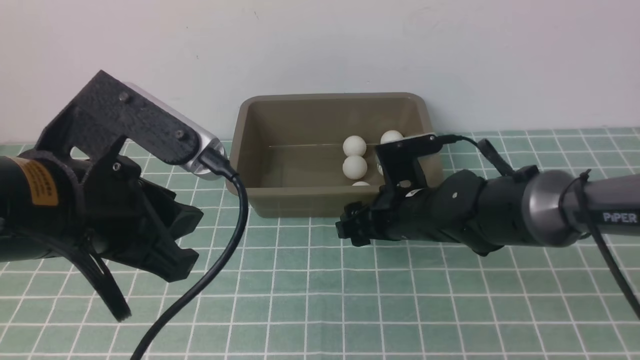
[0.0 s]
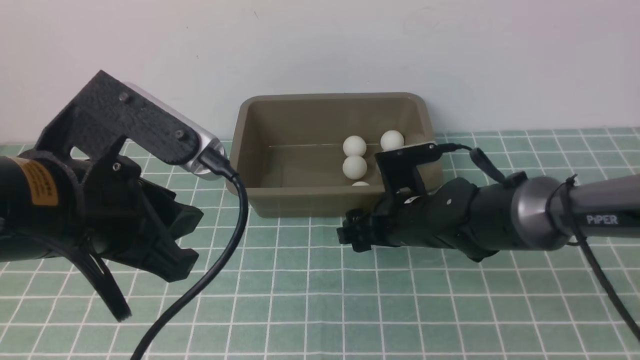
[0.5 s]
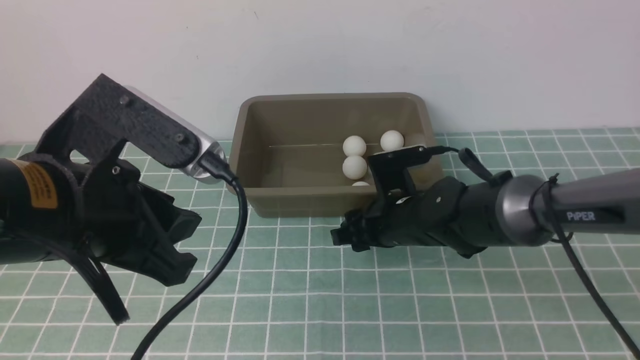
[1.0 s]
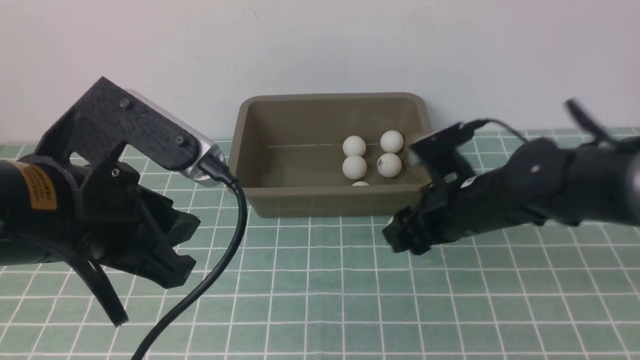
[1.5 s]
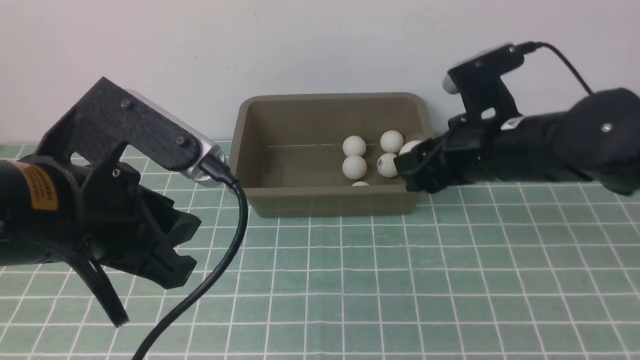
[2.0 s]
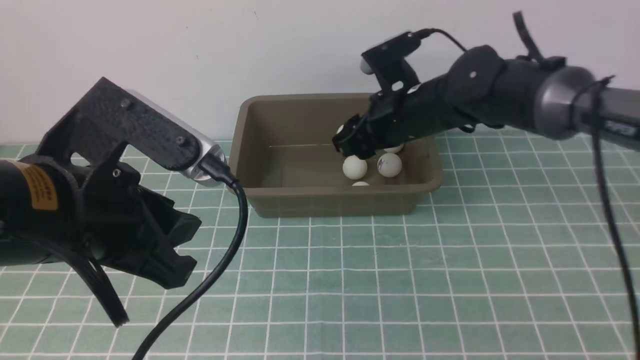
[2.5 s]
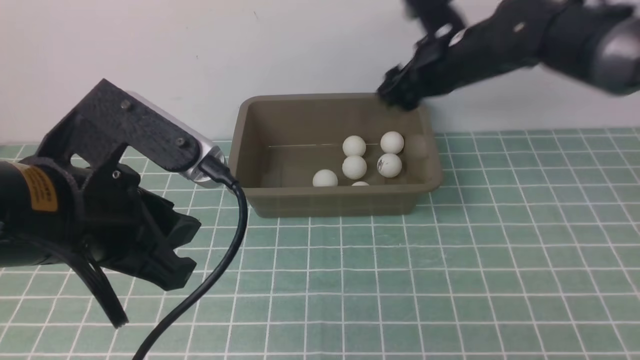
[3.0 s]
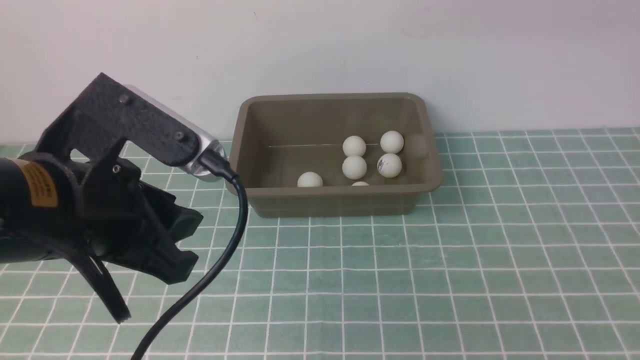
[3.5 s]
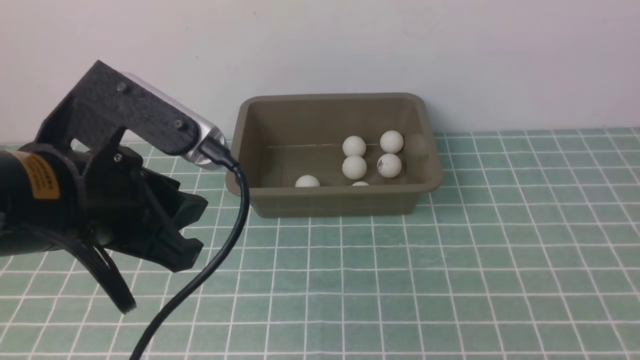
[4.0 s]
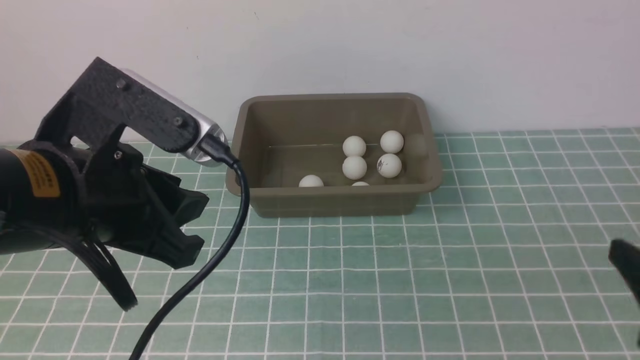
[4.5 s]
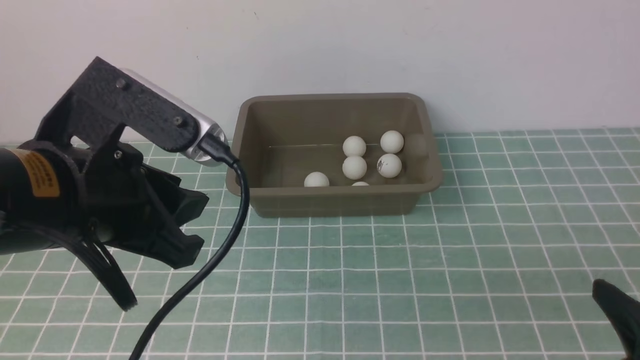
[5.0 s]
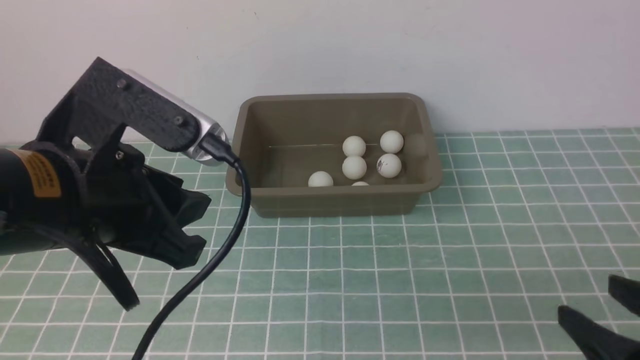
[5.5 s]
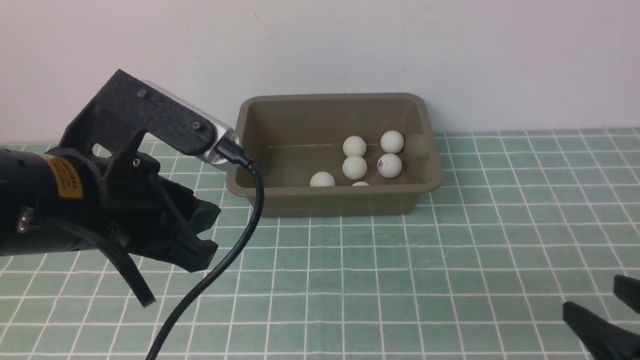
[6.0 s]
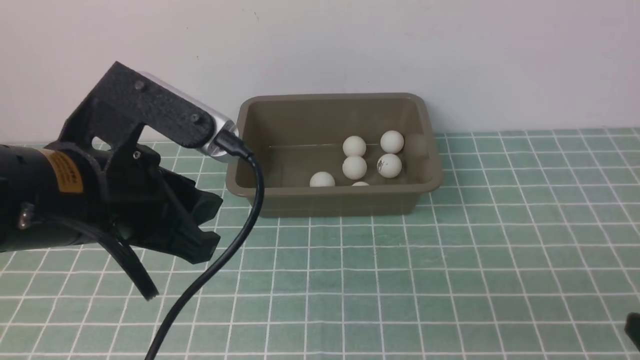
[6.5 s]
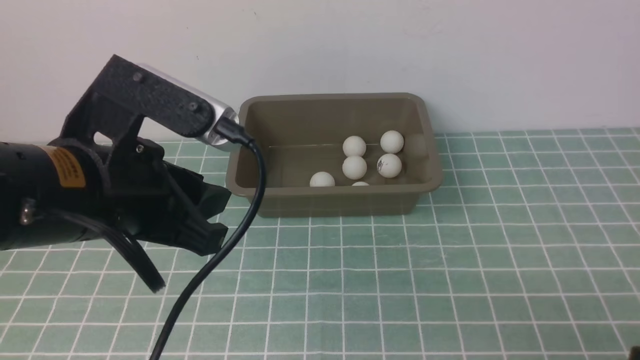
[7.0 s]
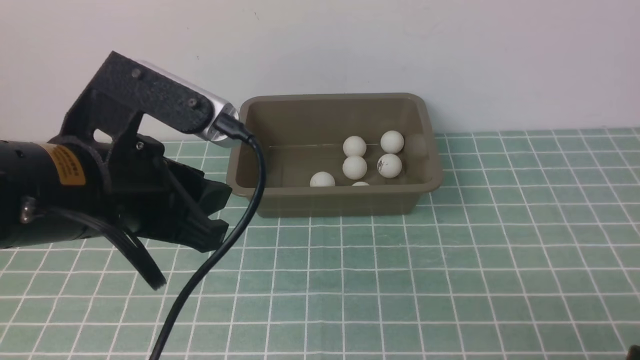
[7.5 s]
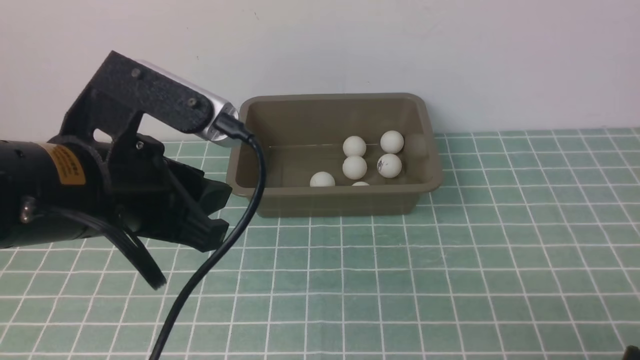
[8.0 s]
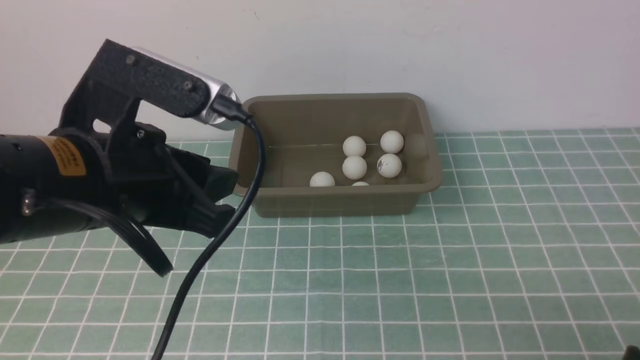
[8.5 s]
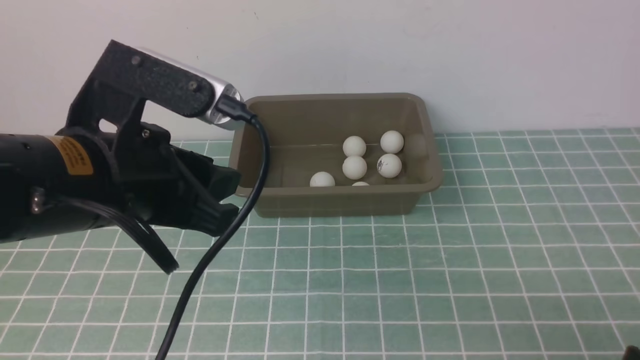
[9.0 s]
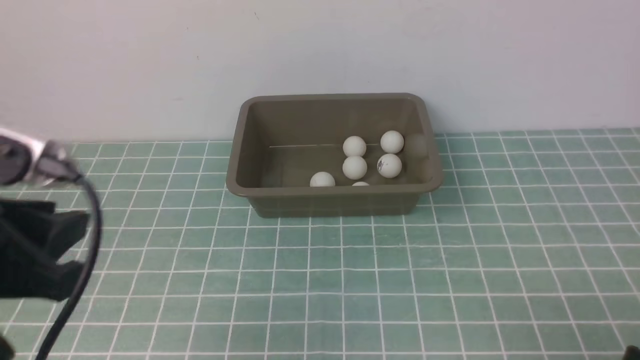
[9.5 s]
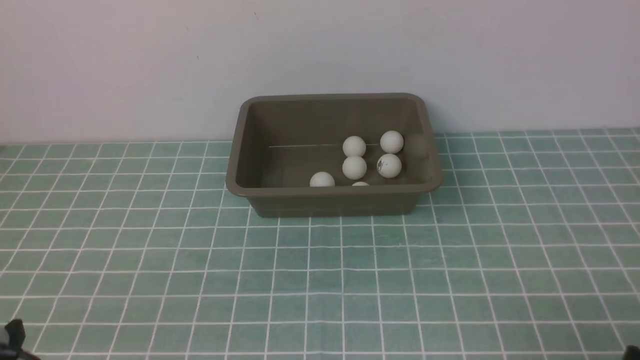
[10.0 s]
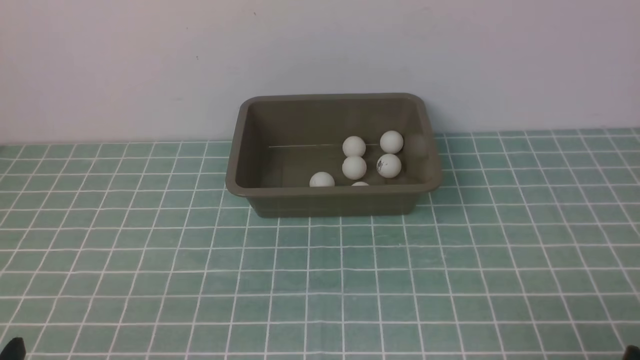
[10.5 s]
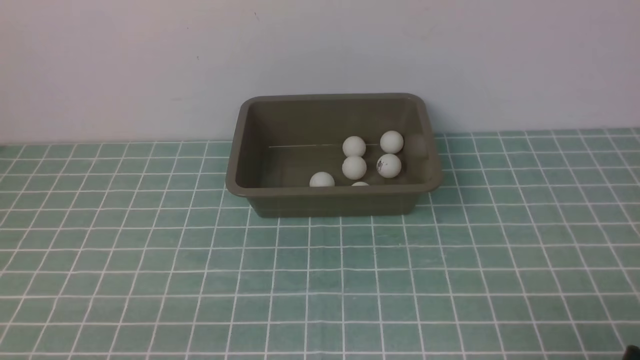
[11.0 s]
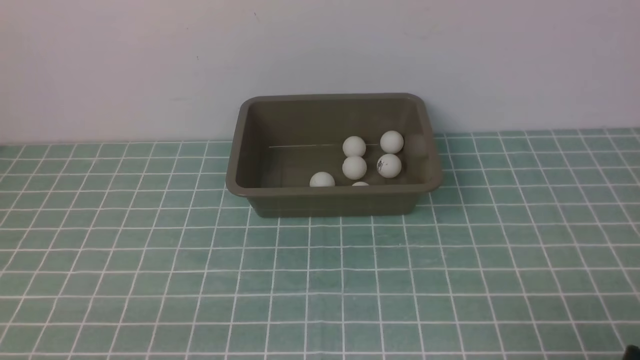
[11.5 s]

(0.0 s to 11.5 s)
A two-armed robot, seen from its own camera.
Step, 1.5 s - 2.5 s: use the right arm to put the table tennis ball into the box.
0.0 s - 2.0 s: The right gripper travels upward and forward by roughly 10 cm, and closes up.
2.0 s - 4.0 s: The right gripper is displaced backward, to the right and upward by approximately 35 cm.
4.0 s - 6.0 s: The right gripper moves downward, approximately 15 cm.
6.0 s - 7.5 s: The right gripper changes place by approximately 5 cm.
7.5 s - 9.5 s: The left gripper goes approximately 15 cm to the left and backward.
9.5 s - 11.5 s: The left gripper goes roughly 15 cm downward and backward.

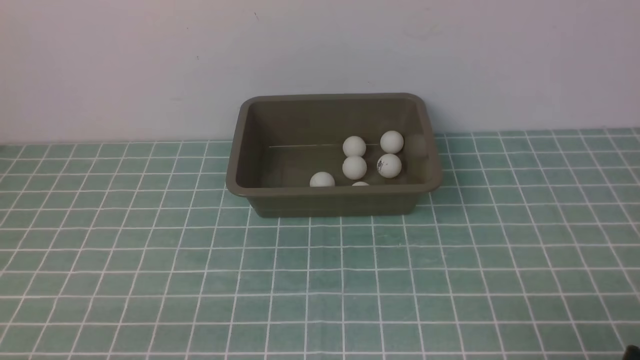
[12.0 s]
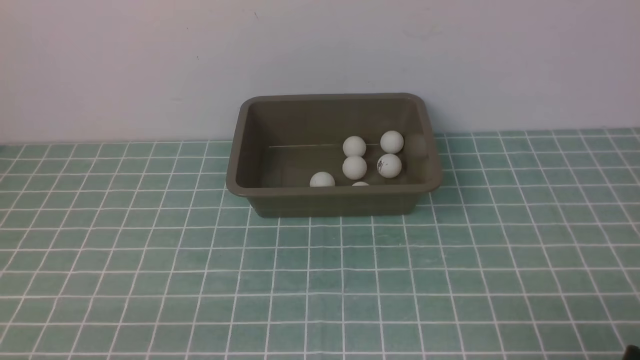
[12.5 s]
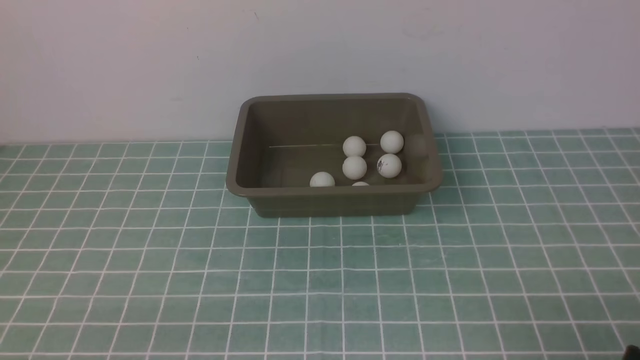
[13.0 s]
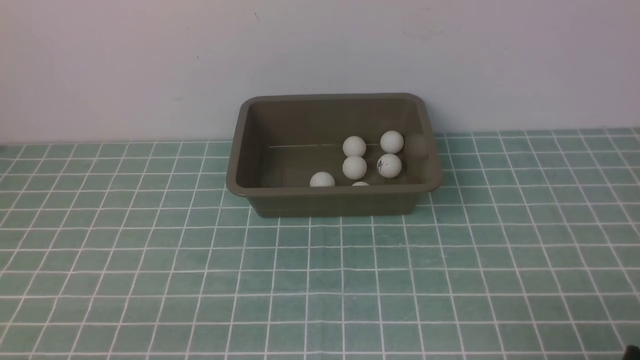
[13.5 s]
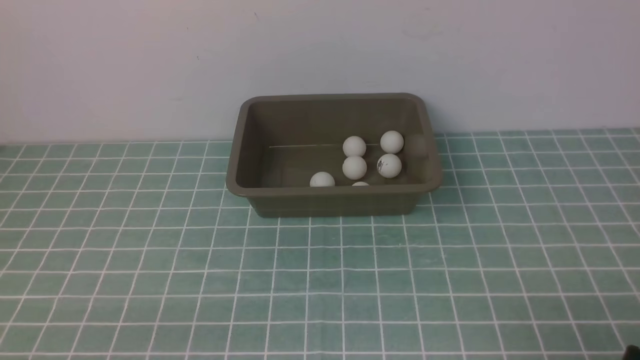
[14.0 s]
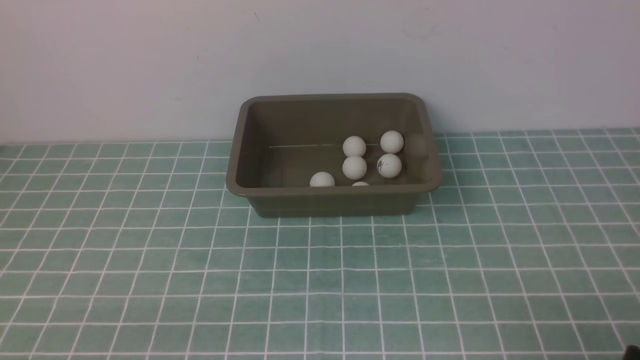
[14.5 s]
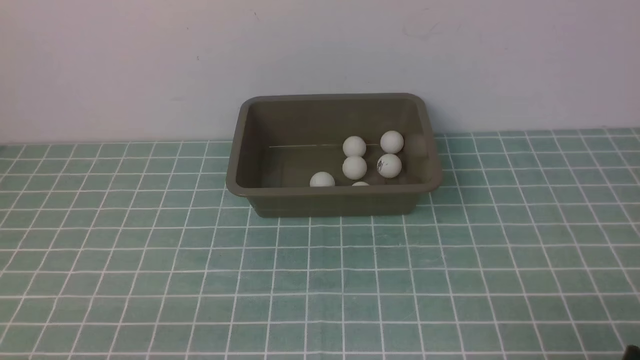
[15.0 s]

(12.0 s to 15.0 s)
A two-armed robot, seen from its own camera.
12.0 s - 15.0 s: Both grippers stay put.

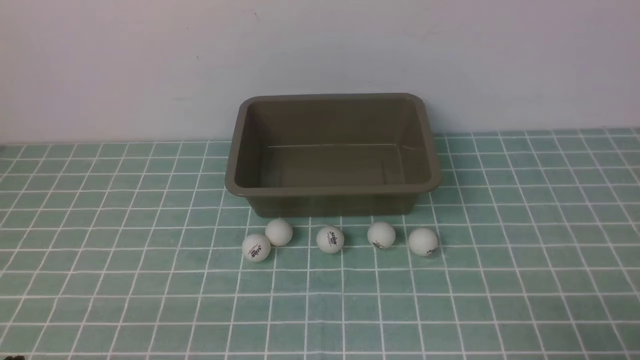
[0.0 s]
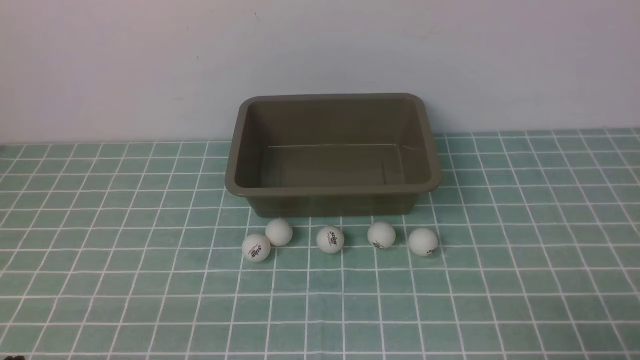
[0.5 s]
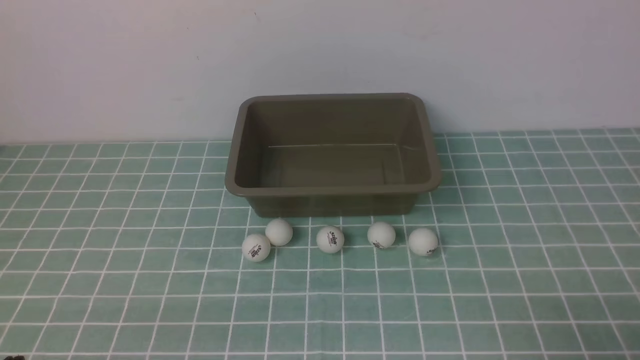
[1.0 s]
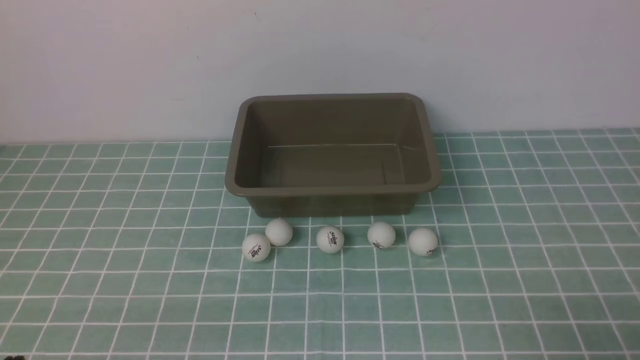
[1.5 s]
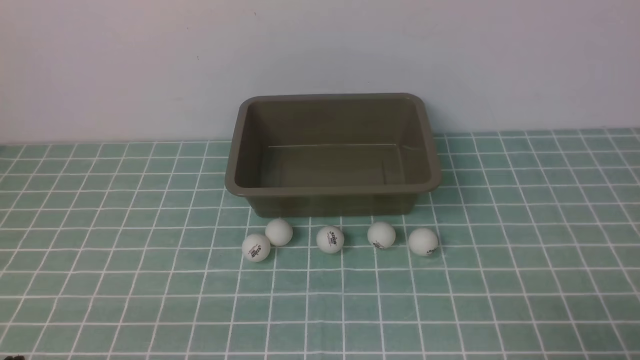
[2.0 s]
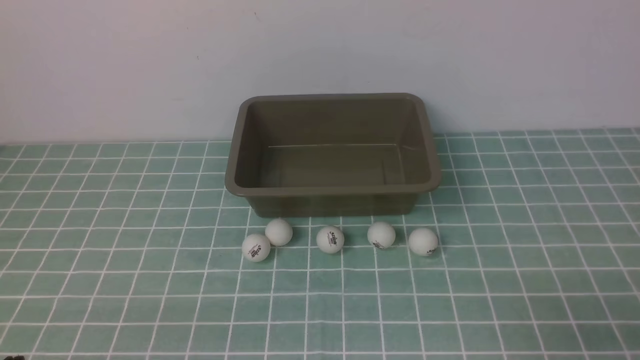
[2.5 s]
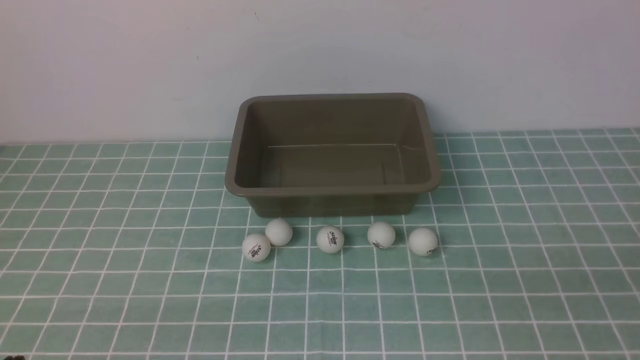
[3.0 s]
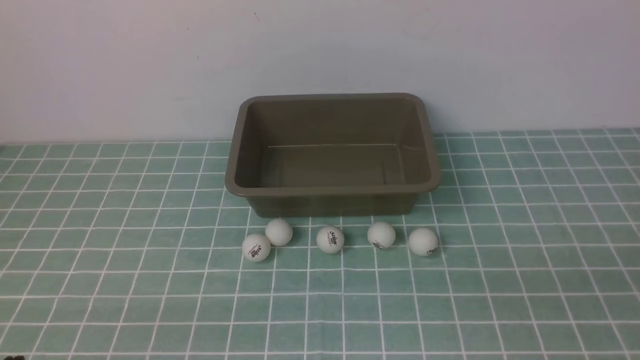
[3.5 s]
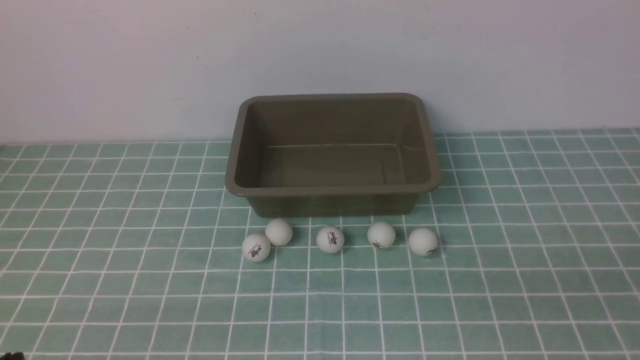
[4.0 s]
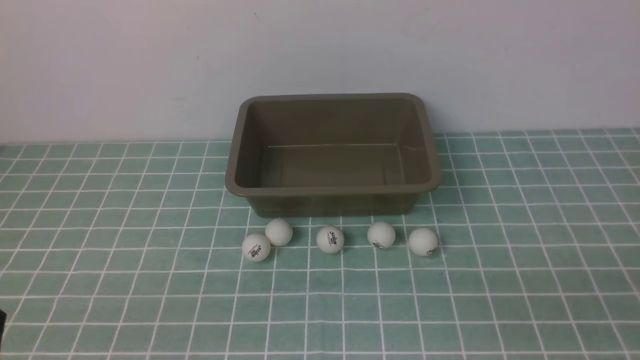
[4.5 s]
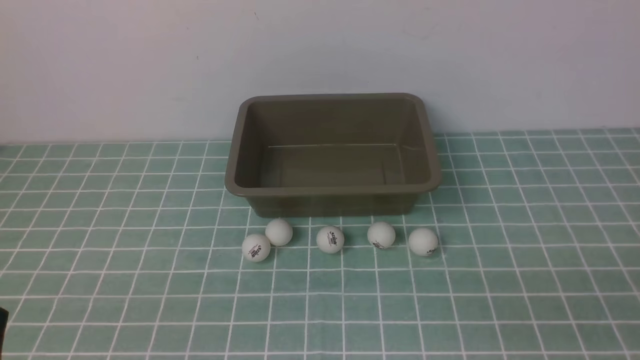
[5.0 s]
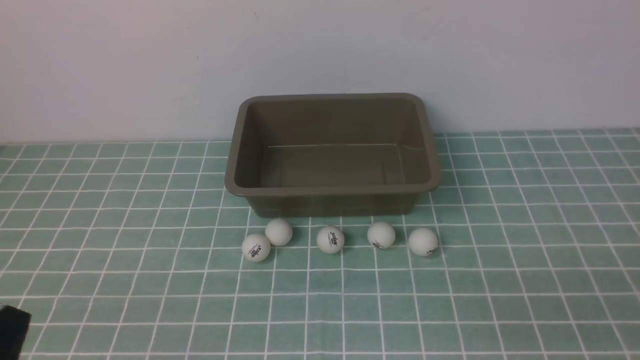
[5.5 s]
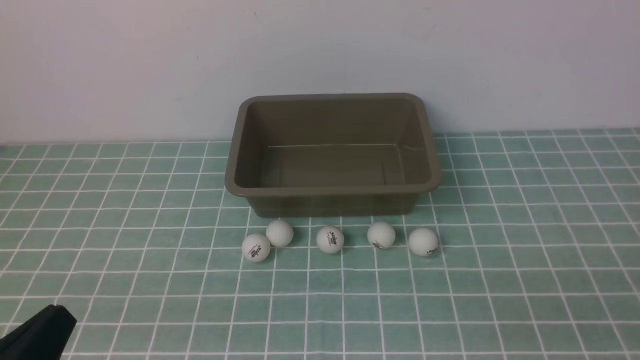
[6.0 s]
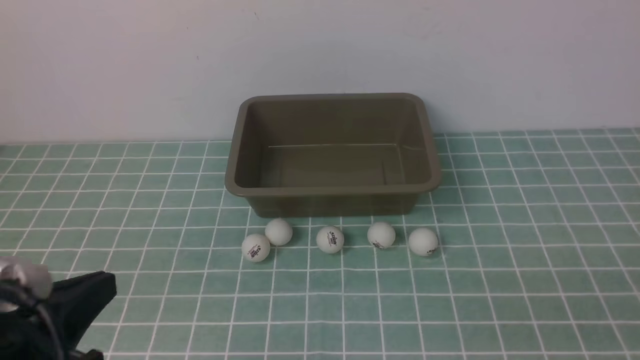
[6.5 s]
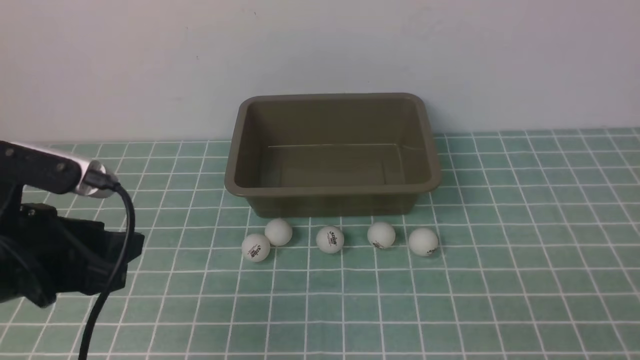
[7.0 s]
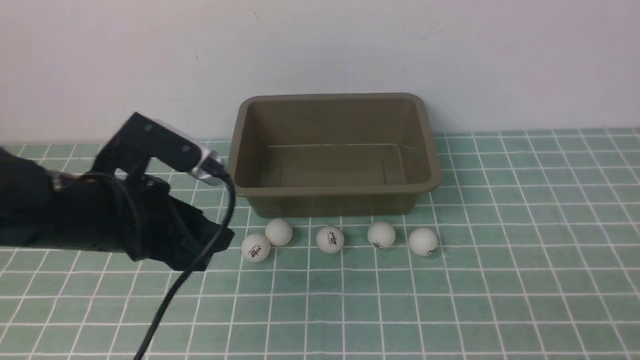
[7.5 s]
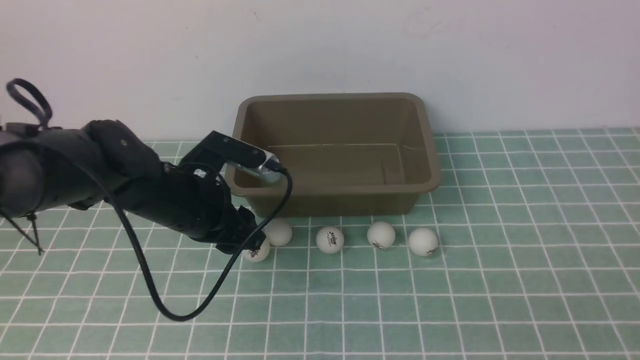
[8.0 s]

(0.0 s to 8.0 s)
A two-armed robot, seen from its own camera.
0.0 s - 2.0 s: Both grippers stay put.
4.0 s - 6.0 s: The left gripper travels upward by approximately 5 cm.
6.0 s - 8.0 s: The left gripper goes some 30 cm forward, and opens its fingers.
